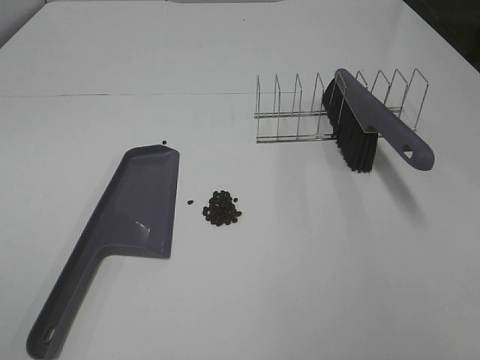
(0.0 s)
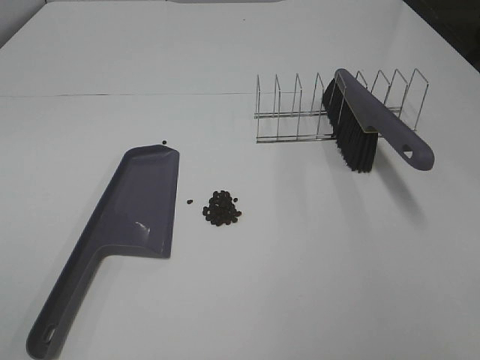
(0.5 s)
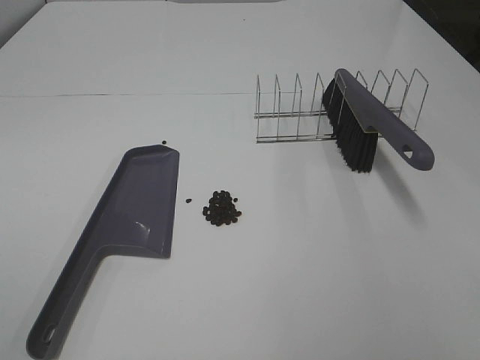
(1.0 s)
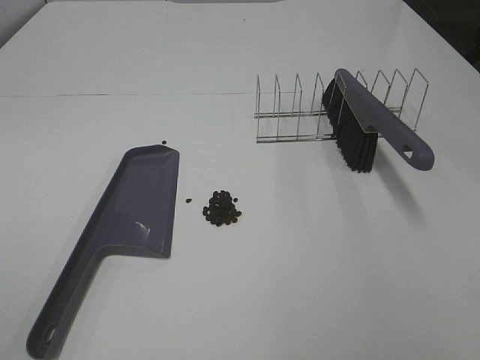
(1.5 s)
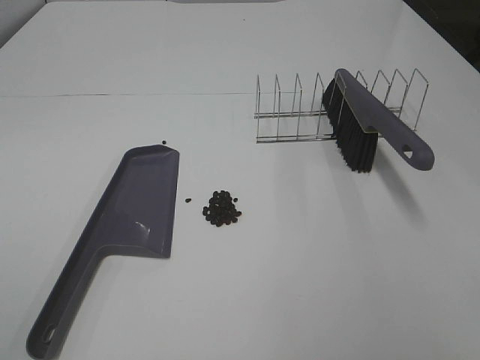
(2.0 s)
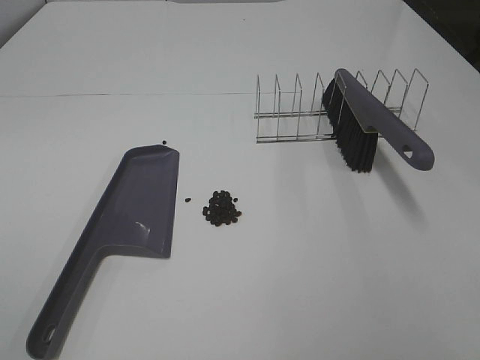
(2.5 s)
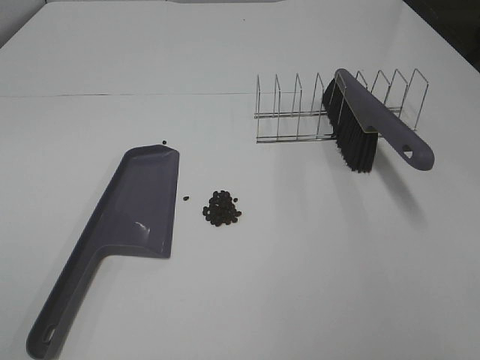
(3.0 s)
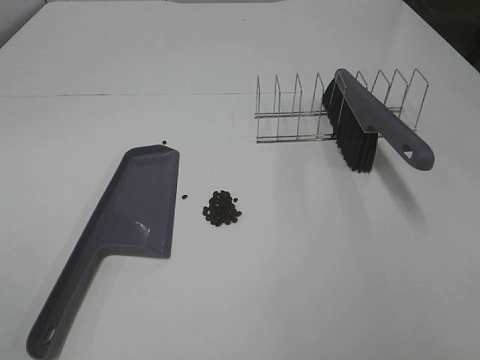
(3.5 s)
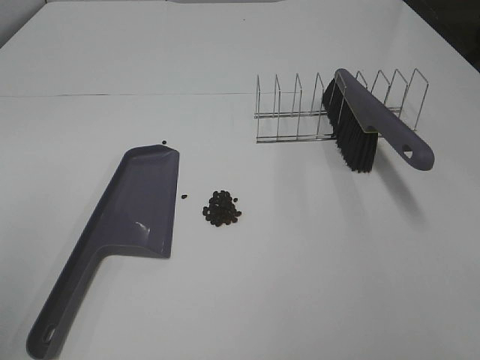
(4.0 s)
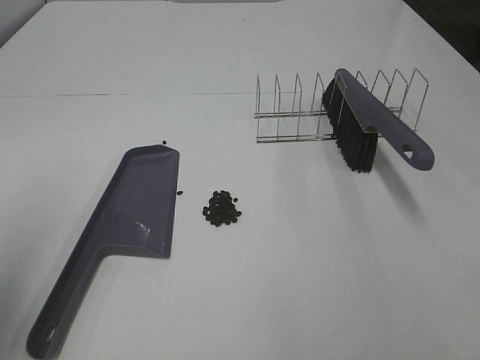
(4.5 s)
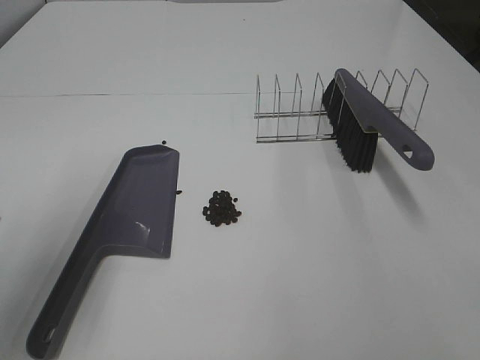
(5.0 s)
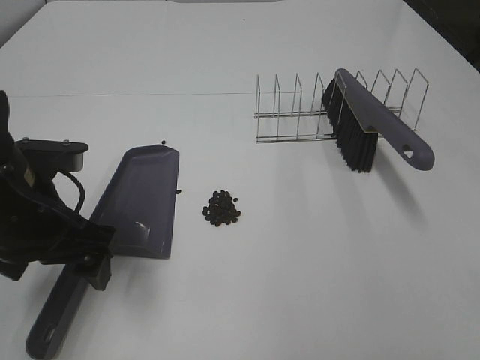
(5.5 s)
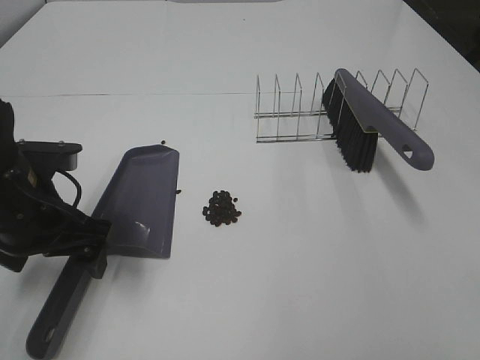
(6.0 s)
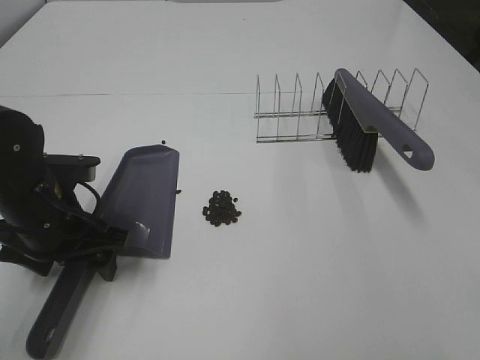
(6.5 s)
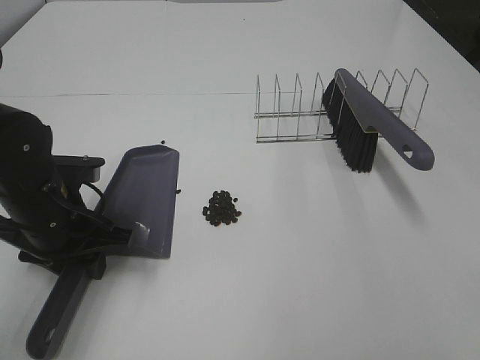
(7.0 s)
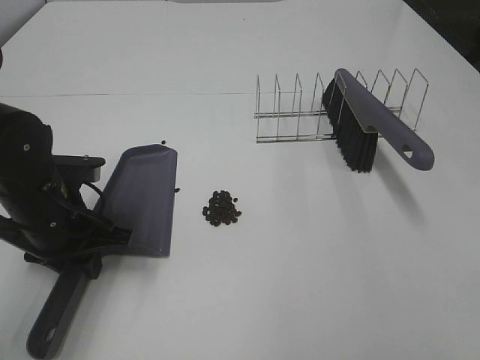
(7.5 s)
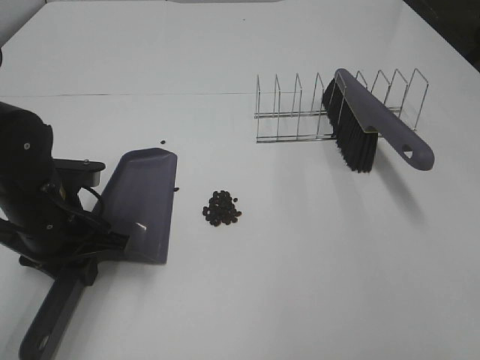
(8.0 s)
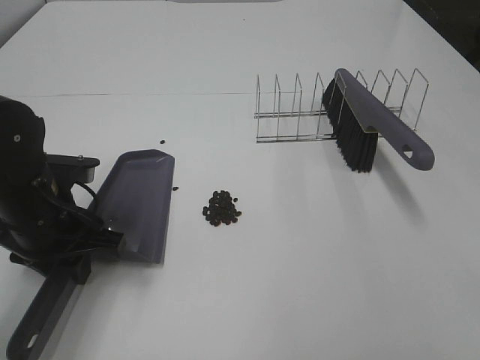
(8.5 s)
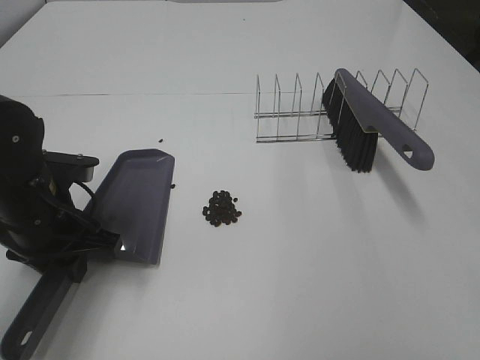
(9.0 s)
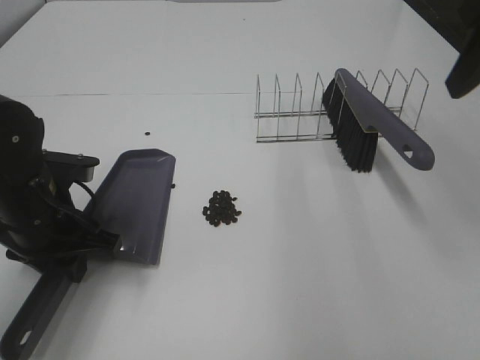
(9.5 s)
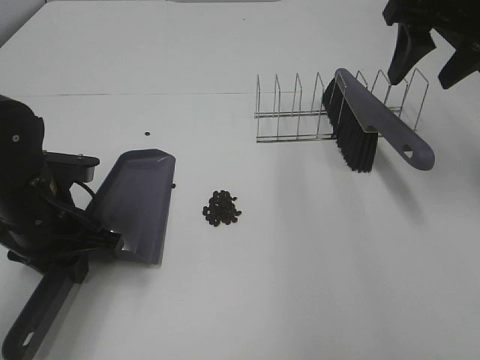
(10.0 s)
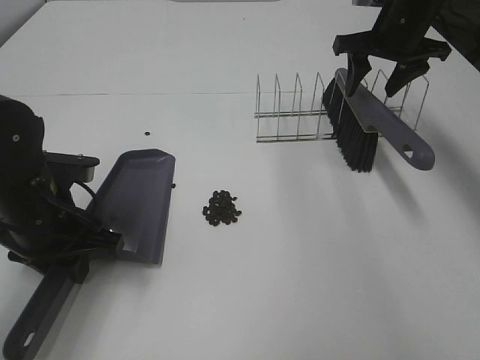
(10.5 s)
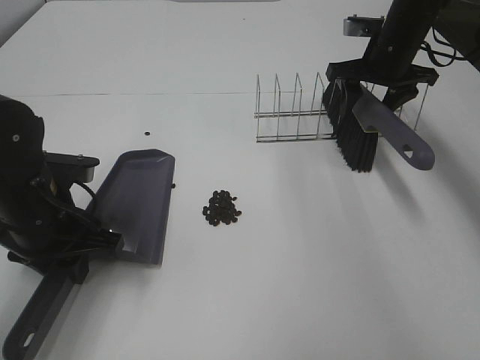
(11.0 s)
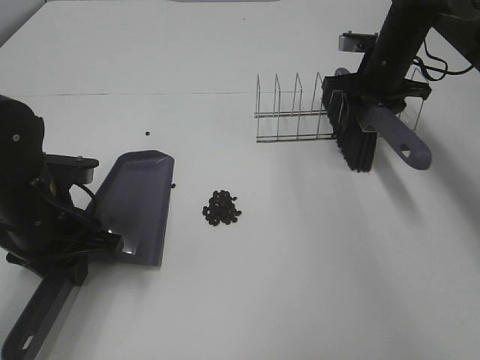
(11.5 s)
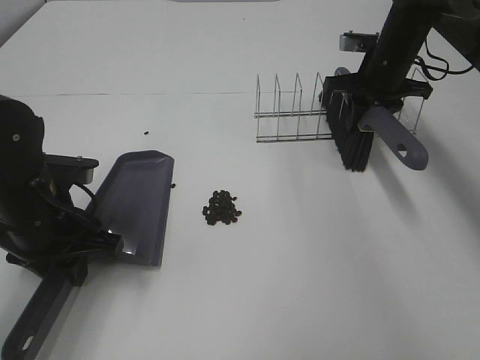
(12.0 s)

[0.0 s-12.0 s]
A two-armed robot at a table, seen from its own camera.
Task of the whole recording: Sweep Coffee Bean.
Step, 0.0 to 7.0 s: Left hand: grab the dustpan.
Step, 8.5 to 11.5 s: Right hand:grab the broom.
0.0 to 2.0 s: The two grippers keep their place.
4.0 to 6.0 s: The left gripper heads downward, forward and to the right, covering roughly 30 cm.
6.0 to 8.0 s: The left gripper closes its fingers.
8.0 to 10.0 s: The right gripper is displaced forward by roughly 40 cm.
10.0 to 12.0 s: The right gripper is displaced downward and forward by about 20 cm, and closes.

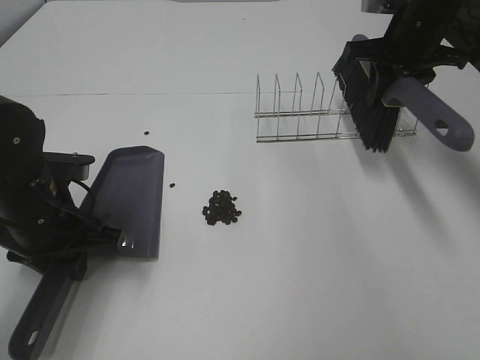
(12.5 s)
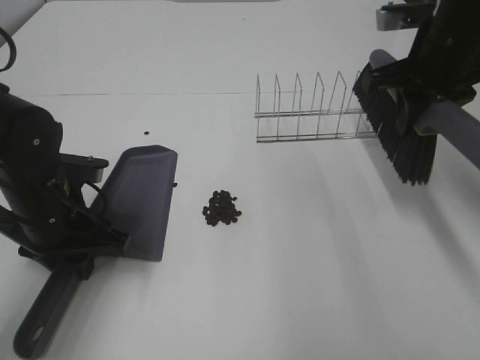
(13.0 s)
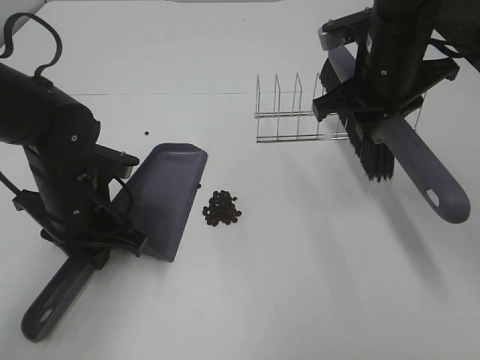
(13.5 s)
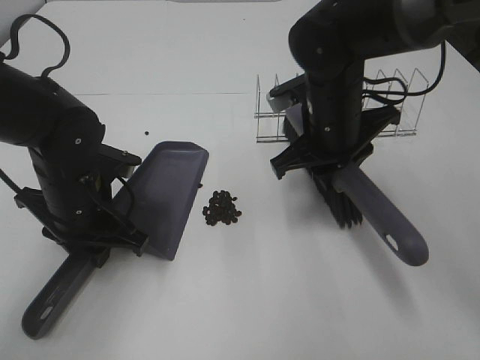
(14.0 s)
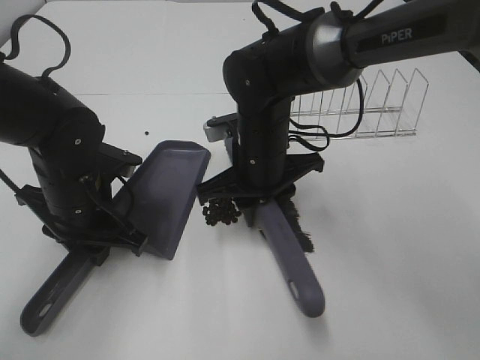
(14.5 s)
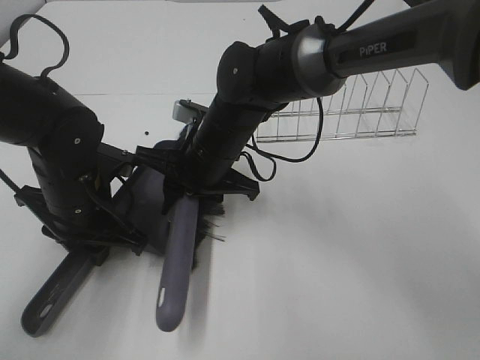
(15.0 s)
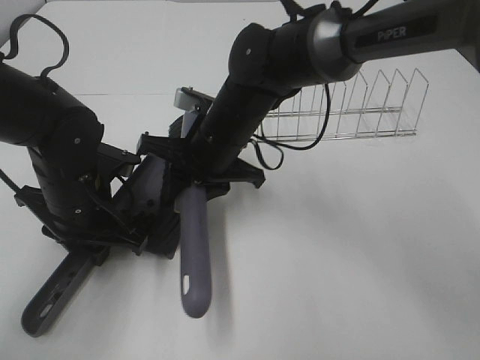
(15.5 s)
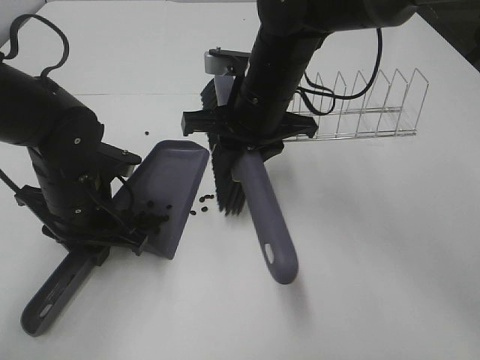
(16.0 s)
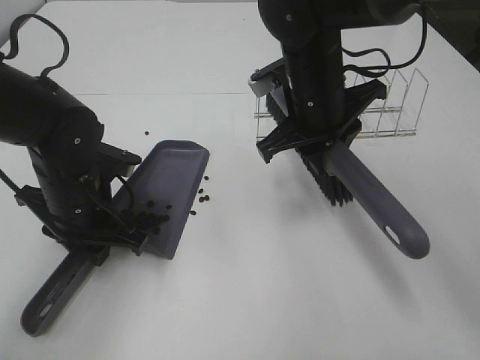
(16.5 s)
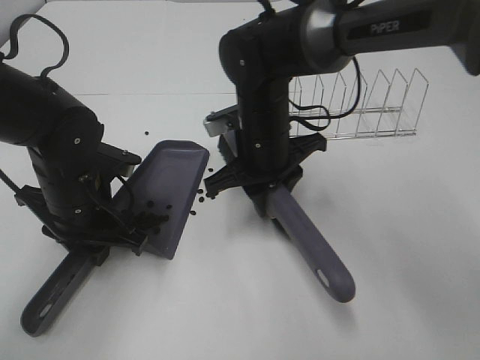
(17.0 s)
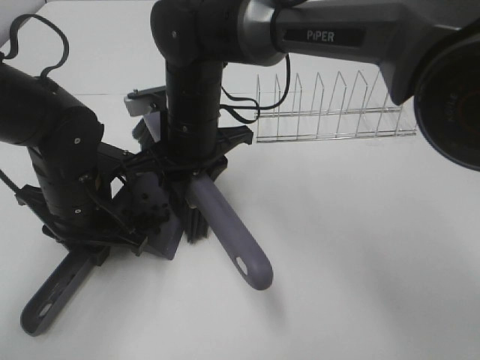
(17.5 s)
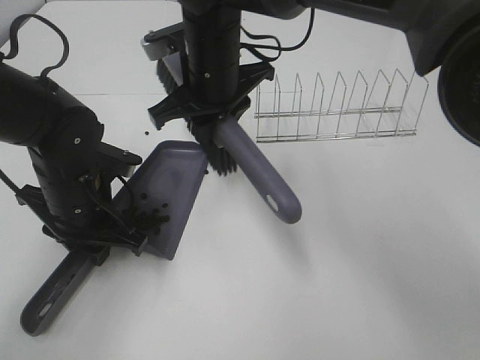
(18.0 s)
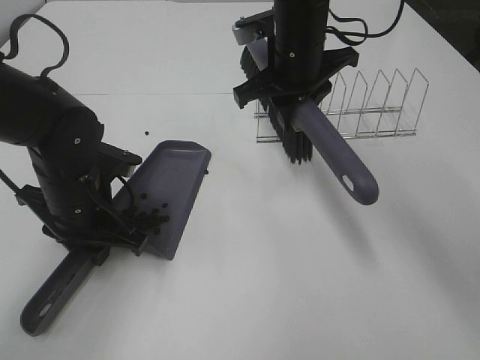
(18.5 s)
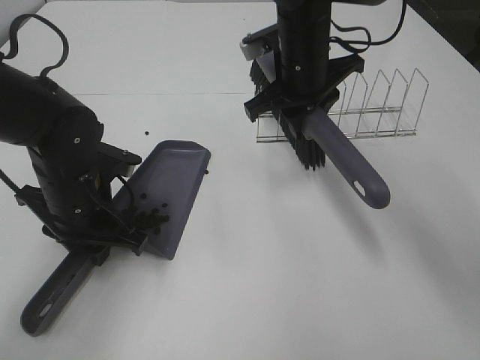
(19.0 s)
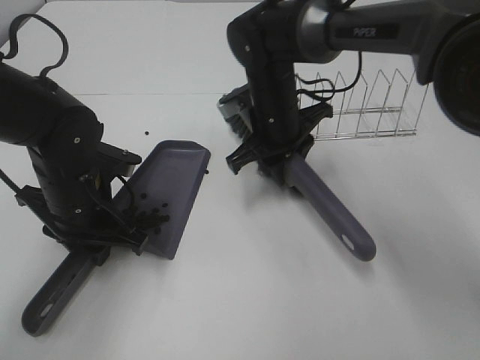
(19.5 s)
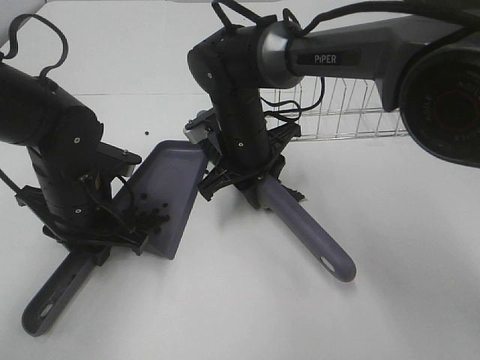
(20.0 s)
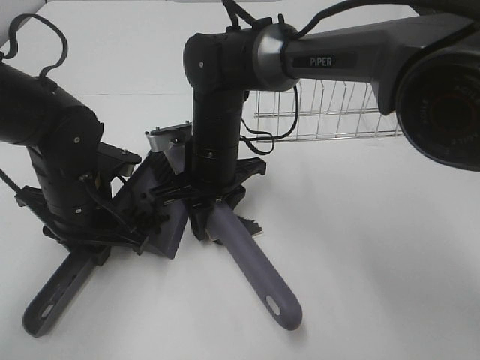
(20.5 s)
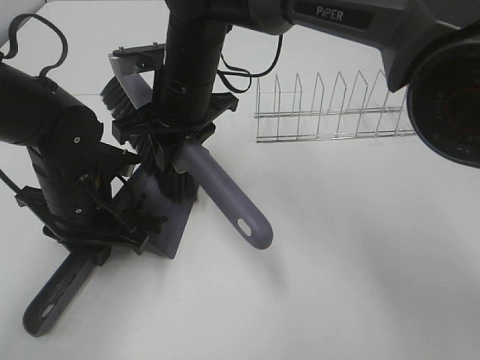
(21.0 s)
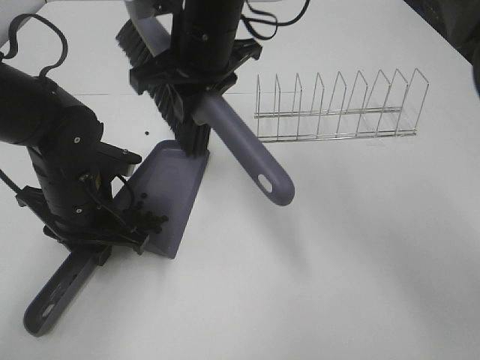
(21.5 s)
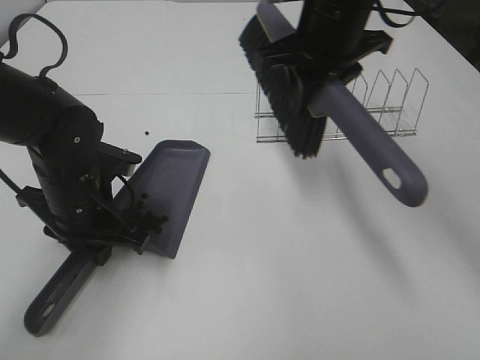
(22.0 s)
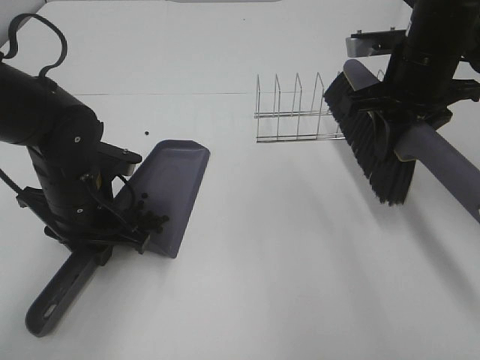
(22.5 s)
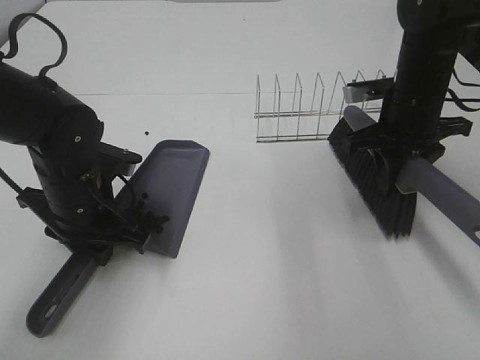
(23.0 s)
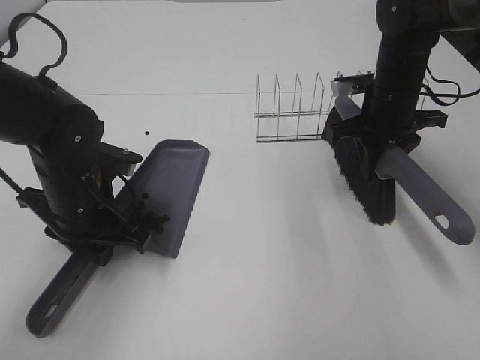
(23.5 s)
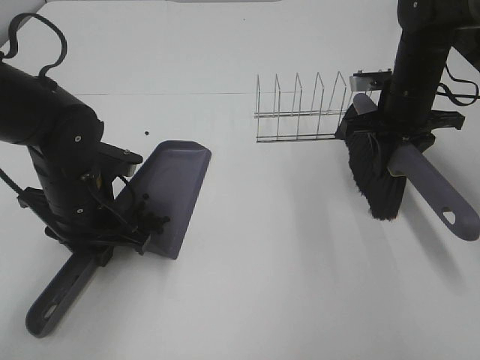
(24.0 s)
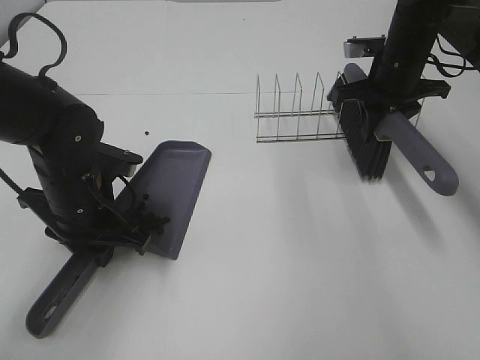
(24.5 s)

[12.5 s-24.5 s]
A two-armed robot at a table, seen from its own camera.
Task of the whole recording: Sweep Coffee Bean.
Step, 12.5 to 21.0 s: Right hand:sweep the coffee beans into the dustpan.
12.5 to 14.5 s: The right gripper goes approximately 25 cm to the left, downward and backward.
14.5 to 16.5 s: The right gripper travels upward and to the right by about 10 cm.
16.5 to 18.5 s: The right gripper goes some 5 cm forward, and moves approximately 15 cm to the left and comes back.
18.5 to 20.5 s: The right gripper travels downward, to the left and backward by some 15 cm.
20.5 to 22.5 s: The right gripper goes roughly 25 cm to the right and upward.
22.5 to 24.5 s: The right gripper goes some 10 cm forward and downward.

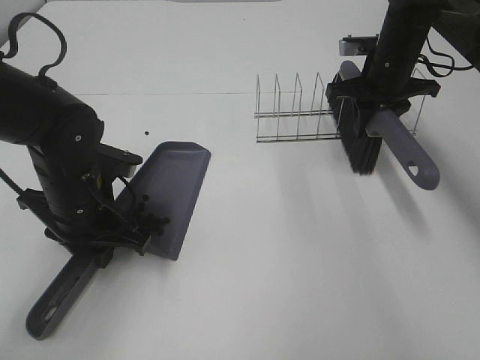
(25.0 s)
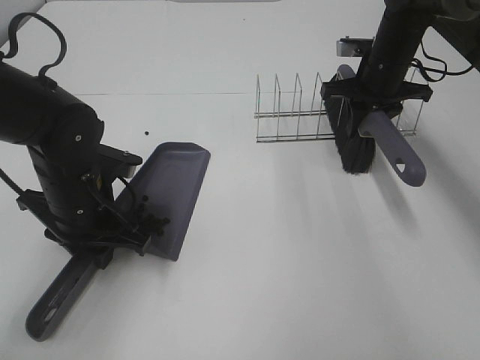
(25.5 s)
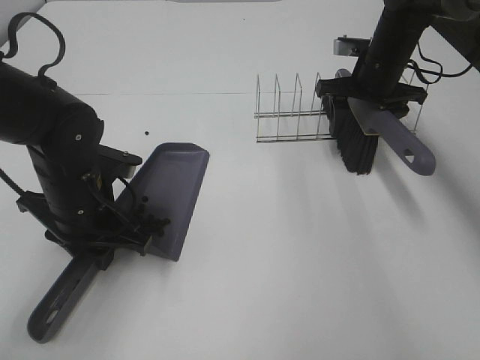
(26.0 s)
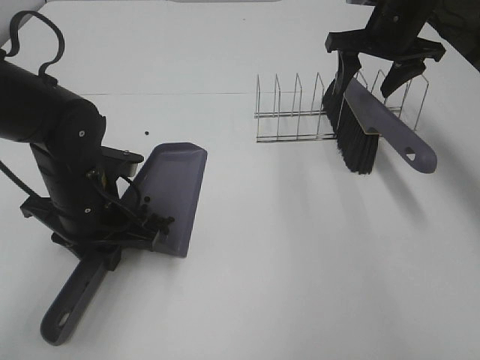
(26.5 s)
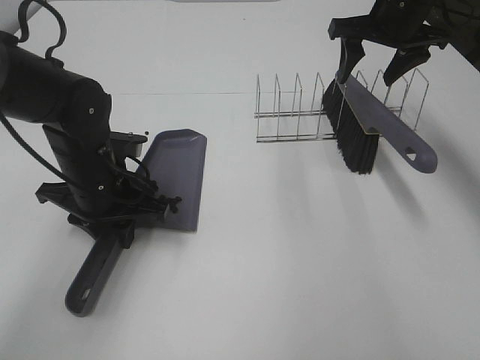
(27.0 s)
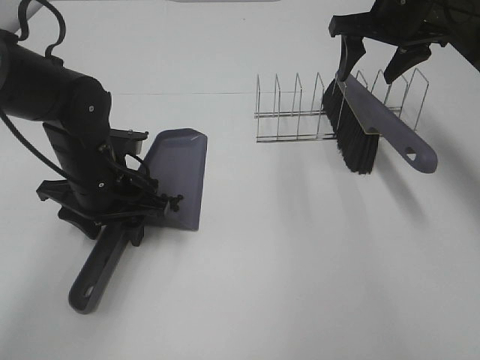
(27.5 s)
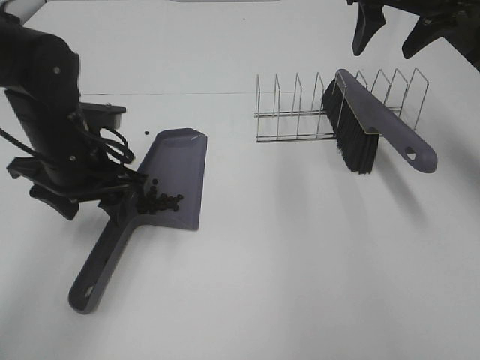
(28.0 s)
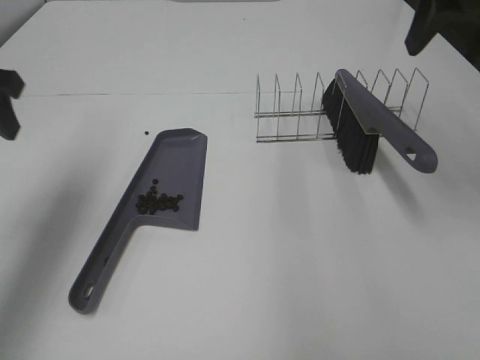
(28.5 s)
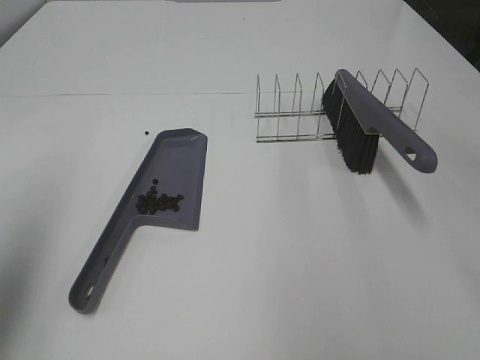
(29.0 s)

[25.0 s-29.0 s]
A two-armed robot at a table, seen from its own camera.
Task of the whole recording: Sweep Coffee Bean.
Step, 26.5 to 27.5 s: Left hand:place the dustpan on the table.
25.0 to 27.0 s: The right gripper is displaced upward by approximately 10 cm, and opens its fingers.
27.0 to 29.0 s: The right gripper shifts approximately 35 cm backward and upward, while the left gripper moves upward, to the left and backward, about 35 cm, and opens.
